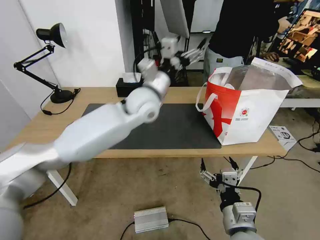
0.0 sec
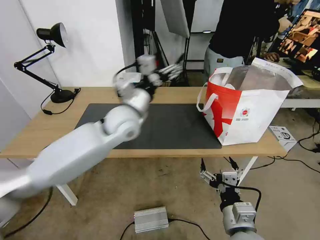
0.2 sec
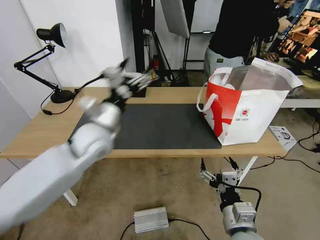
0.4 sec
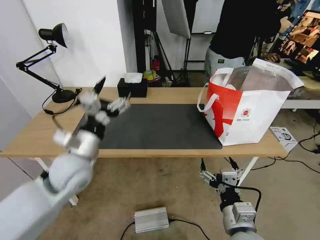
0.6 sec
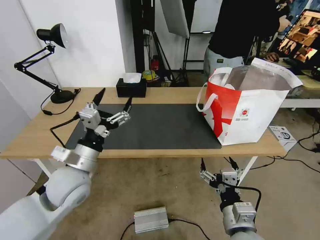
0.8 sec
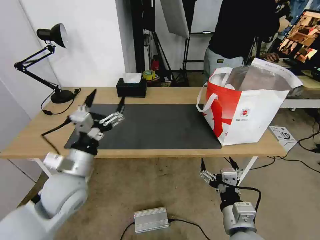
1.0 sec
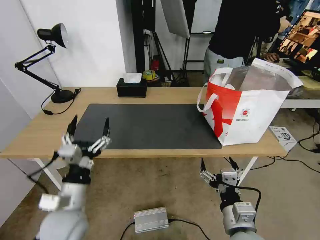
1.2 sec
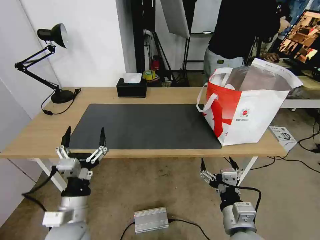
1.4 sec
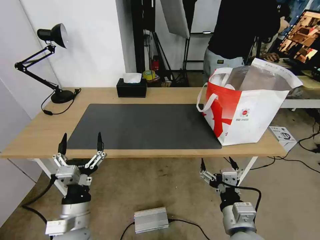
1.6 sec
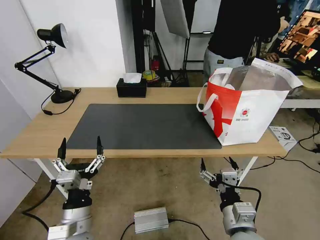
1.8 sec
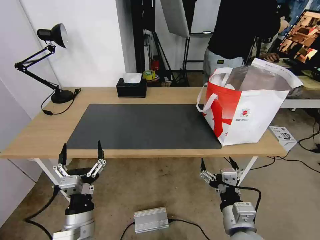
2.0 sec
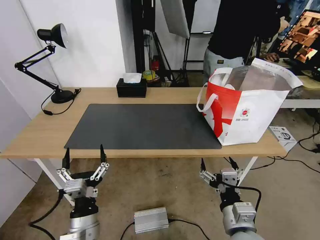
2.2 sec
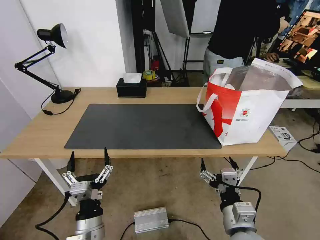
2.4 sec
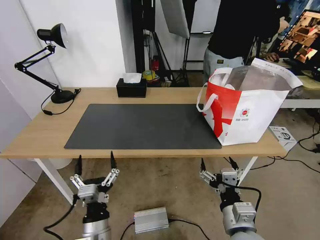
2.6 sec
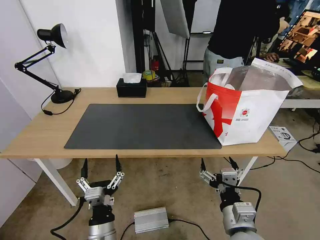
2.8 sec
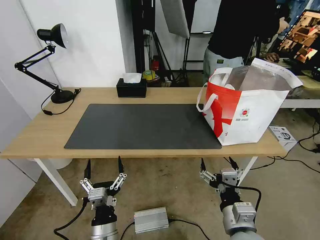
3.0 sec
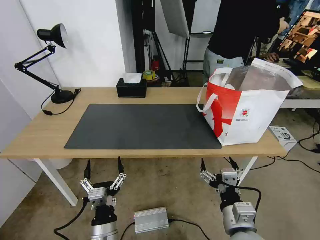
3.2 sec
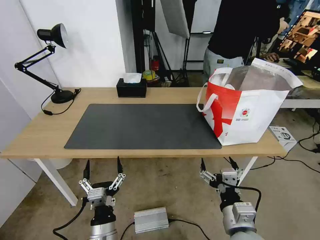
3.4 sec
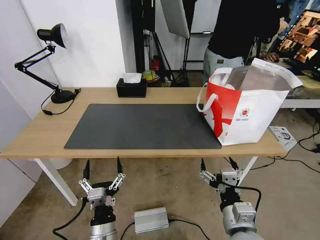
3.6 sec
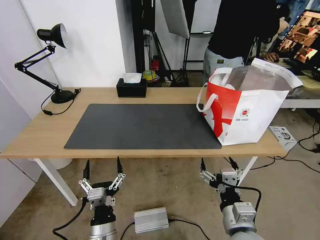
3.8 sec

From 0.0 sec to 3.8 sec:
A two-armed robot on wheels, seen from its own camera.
Task of the whole recording: Pick up the trash from the table and place it into the takeout bag.
From 0.0 sec to 1.2 sec: The left gripper shifts roughly 35 cm backward, to the left and downward.
From 1.2 sec to 2.6 sec: The left gripper shifts about 15 cm downward, backward and to the right.
From 2.6 sec to 3.8 sec: The grippers move only a little.
